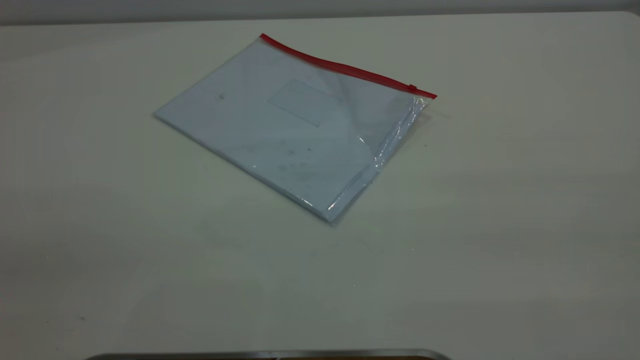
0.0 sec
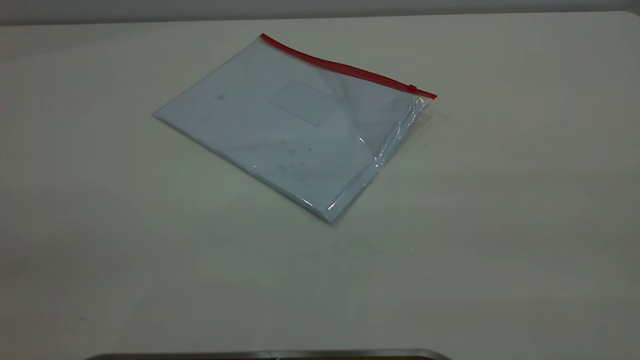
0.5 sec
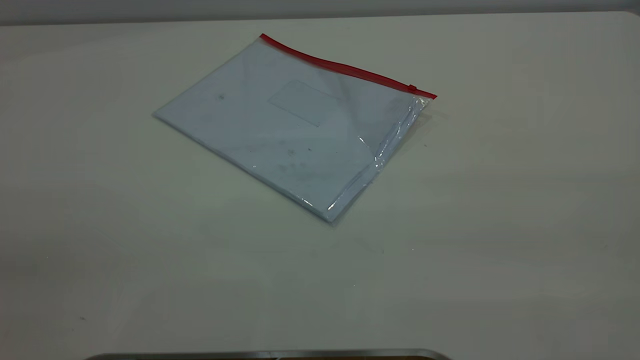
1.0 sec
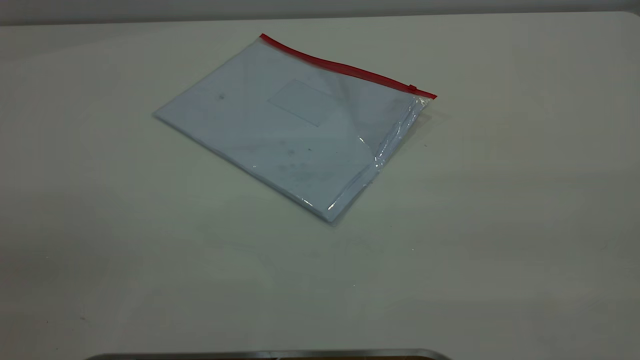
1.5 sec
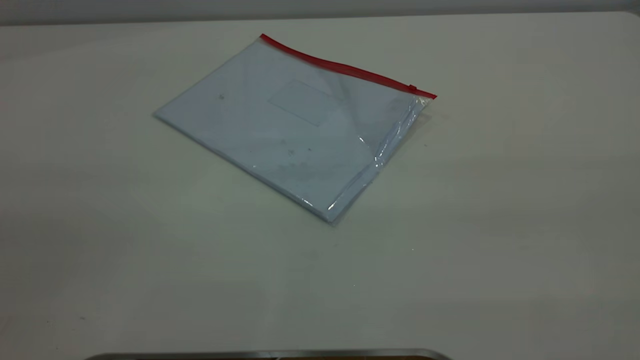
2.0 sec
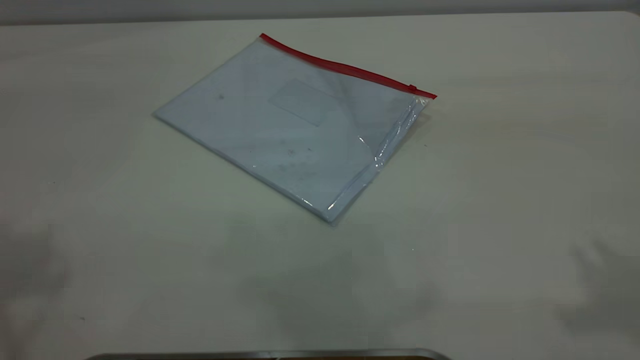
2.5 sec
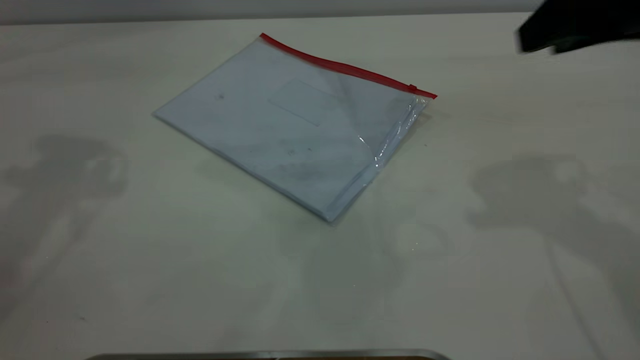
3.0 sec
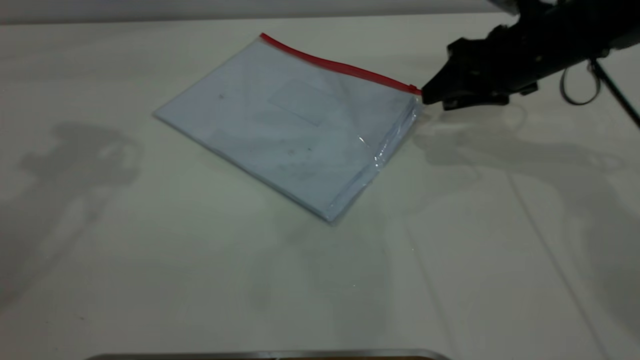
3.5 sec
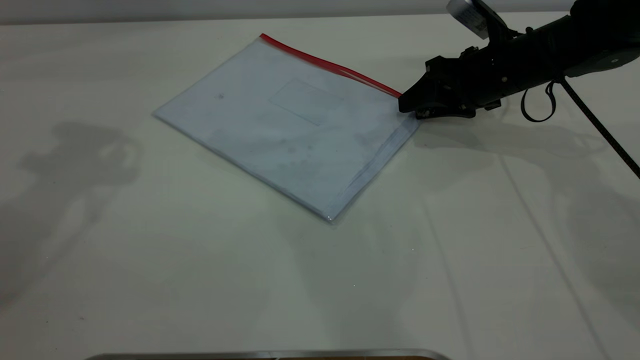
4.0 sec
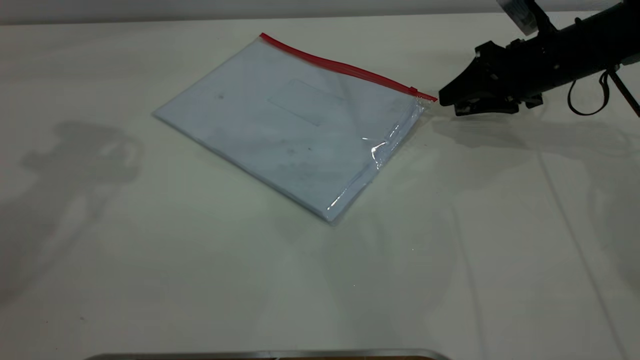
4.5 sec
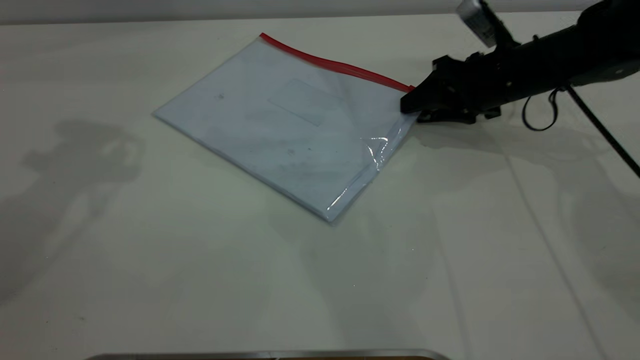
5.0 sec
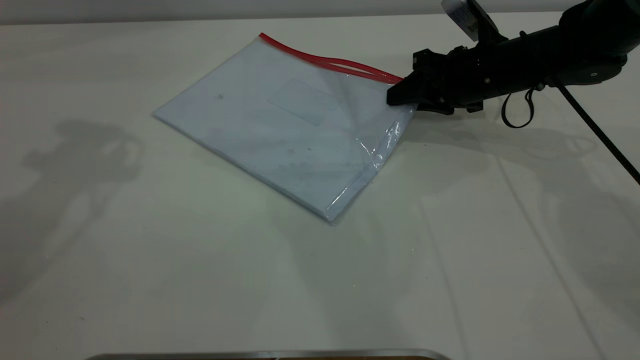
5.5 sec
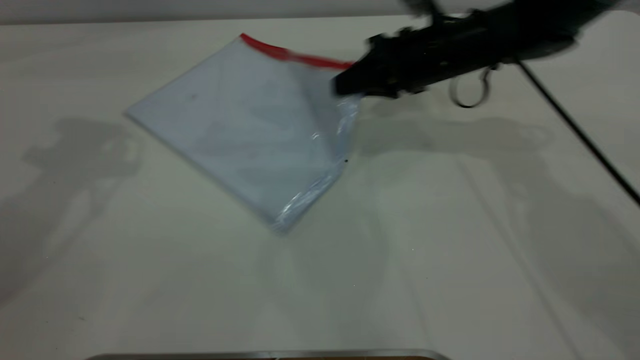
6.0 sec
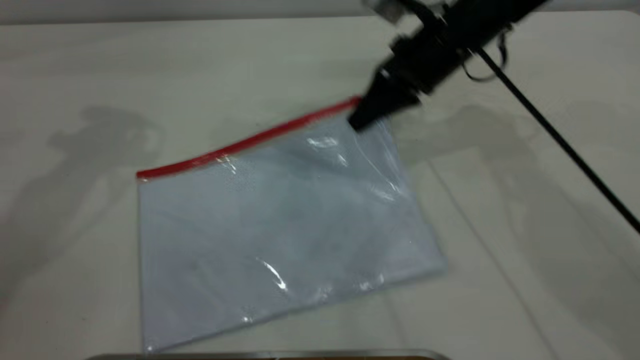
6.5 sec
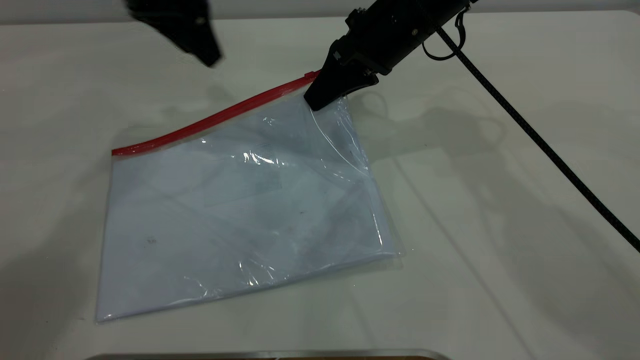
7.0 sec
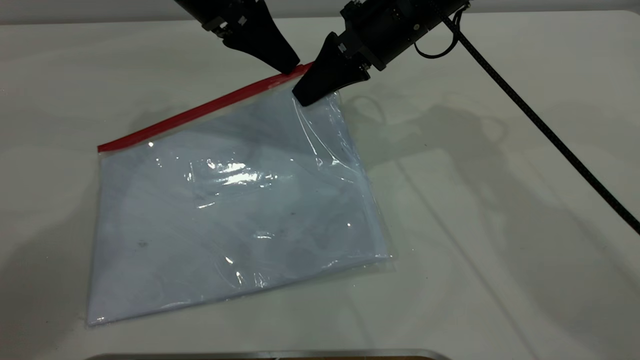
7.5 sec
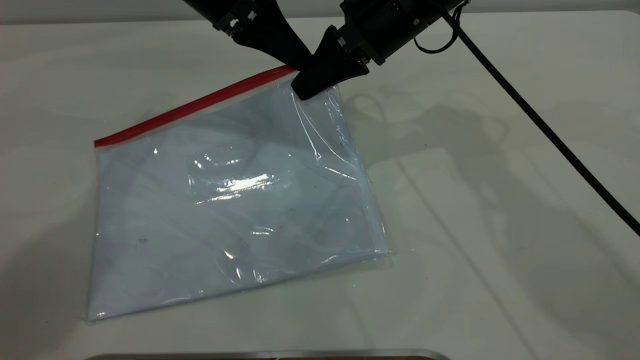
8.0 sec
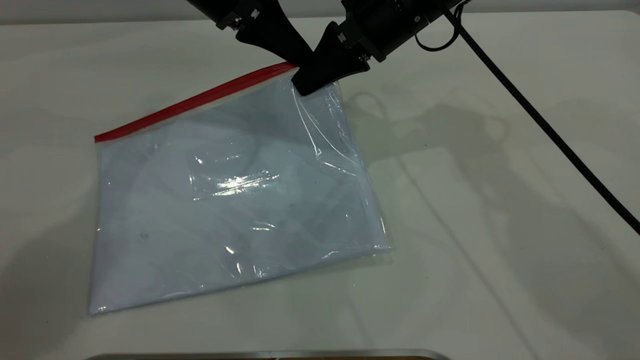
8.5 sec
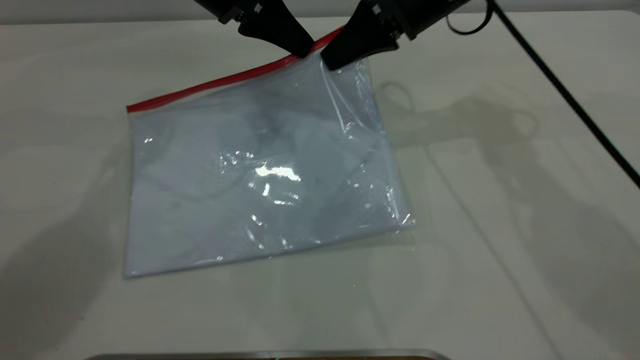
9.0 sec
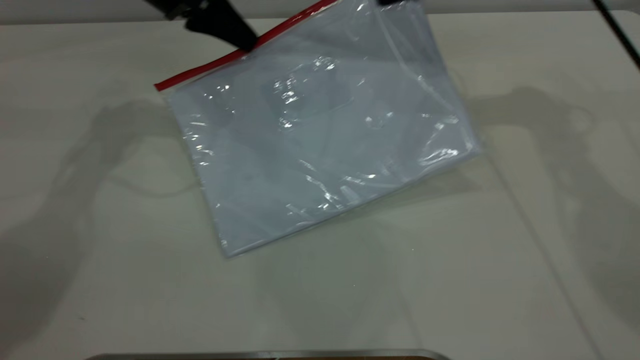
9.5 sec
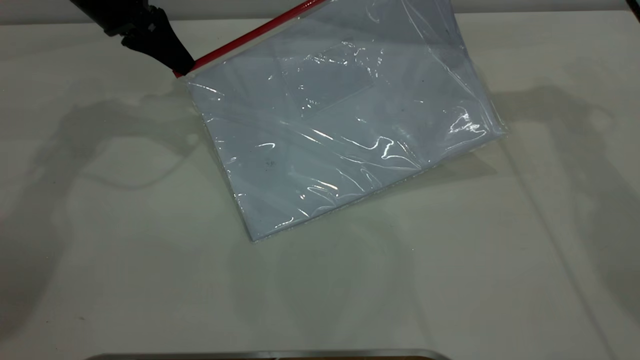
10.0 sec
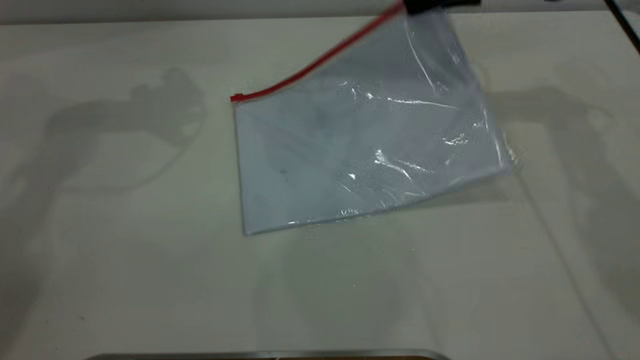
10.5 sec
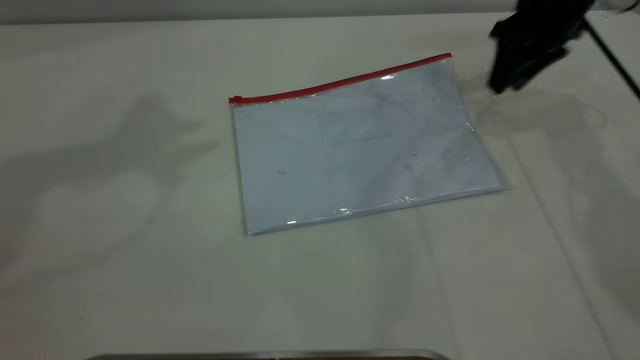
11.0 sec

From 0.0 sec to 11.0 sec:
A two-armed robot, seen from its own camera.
Step, from 0.0 sec to 6.0 sec: Pick up the transparent plastic bag with the right gripper.
Step, from 7.0 sec to 10.0 sec: Pulling up the zipper on the transparent plastic bag with the left gripper to close it.
From 2.0 sec to 3.5 sec: The right gripper moves forward and downward, approximately 50 cm, and opens its fingers.
From 3.5 sec to 5.5 sec: The right gripper moves downward, some 5 cm, and closes up.
From 5.5 sec to 7.5 sec: The right gripper is displaced to the left and upward by approximately 15 cm, and closes up. The left gripper moves to the right, downward and forward, approximately 20 cm.
From 7.5 sec to 9.0 sec: The left gripper closes. The right gripper shifts by about 5 cm.
From 9.0 sec to 11.0 sec: The left gripper goes approximately 30 cm upward, and opens its fingers, while the right gripper moves to the right, about 15 cm, and opens.
